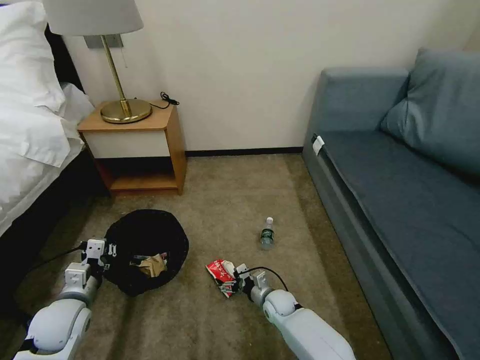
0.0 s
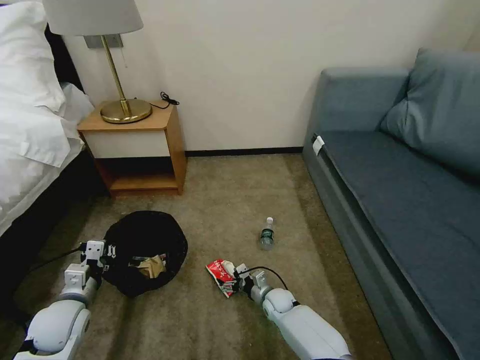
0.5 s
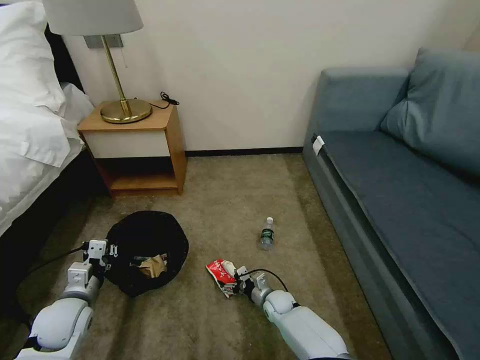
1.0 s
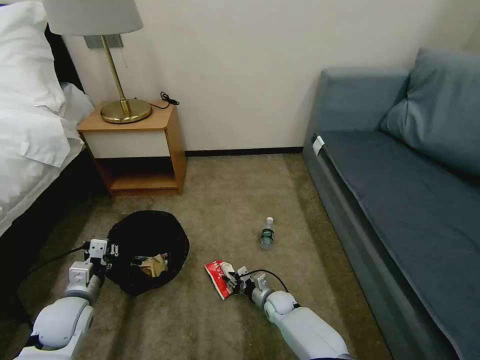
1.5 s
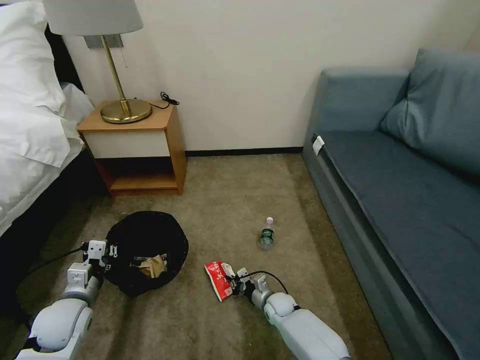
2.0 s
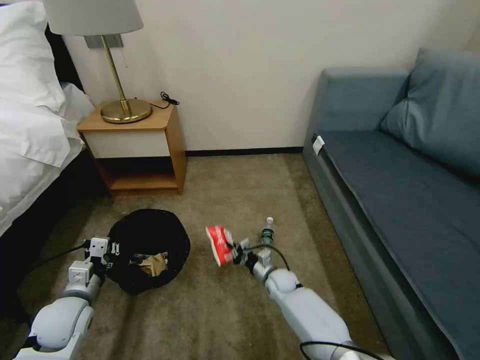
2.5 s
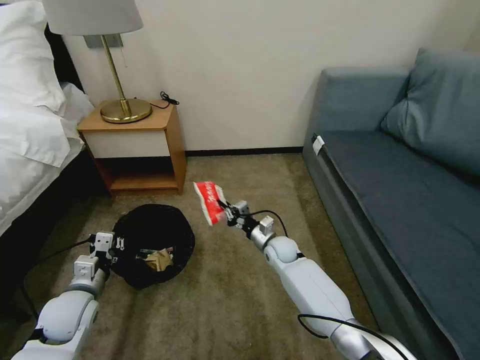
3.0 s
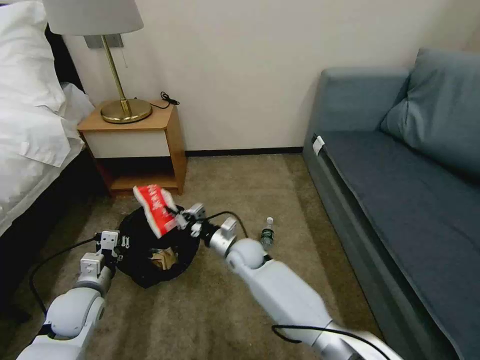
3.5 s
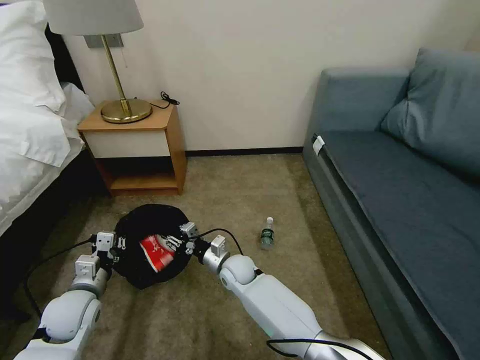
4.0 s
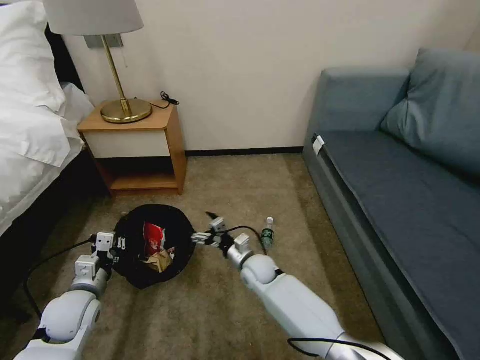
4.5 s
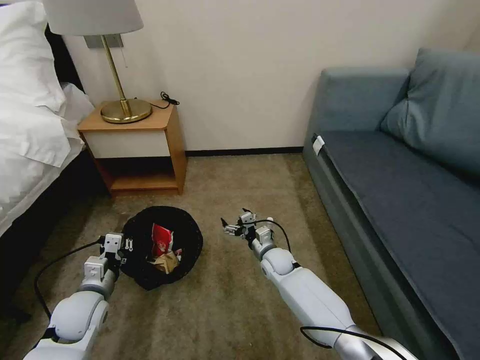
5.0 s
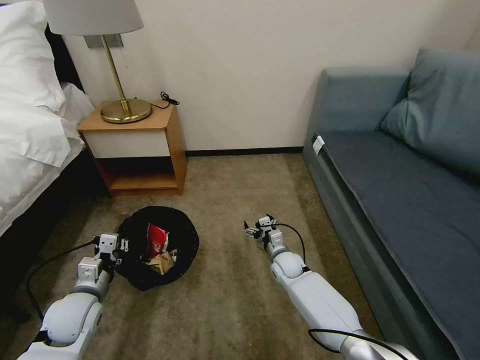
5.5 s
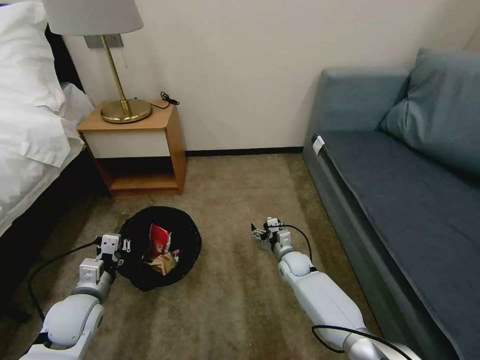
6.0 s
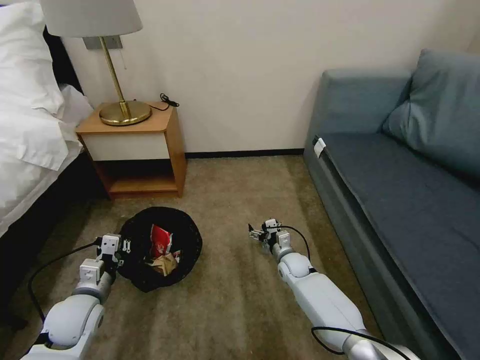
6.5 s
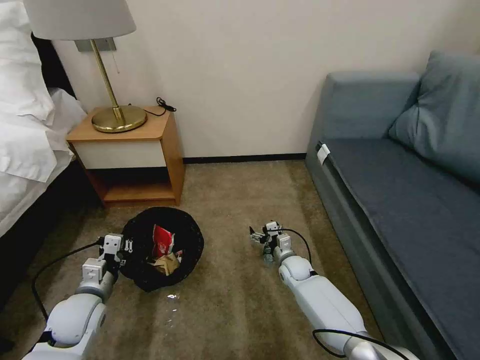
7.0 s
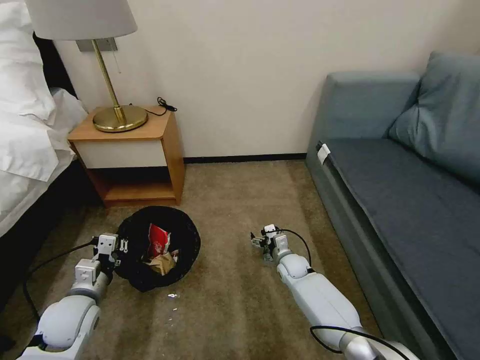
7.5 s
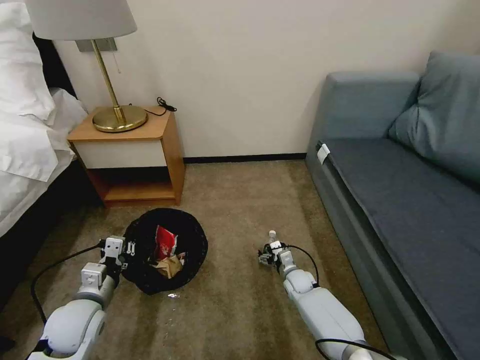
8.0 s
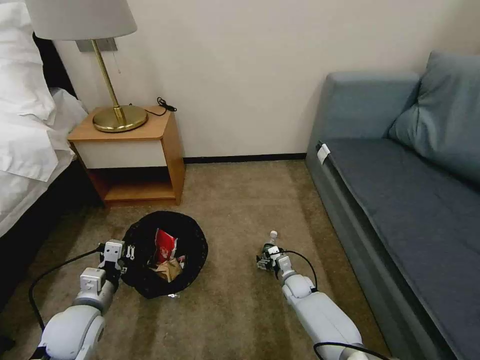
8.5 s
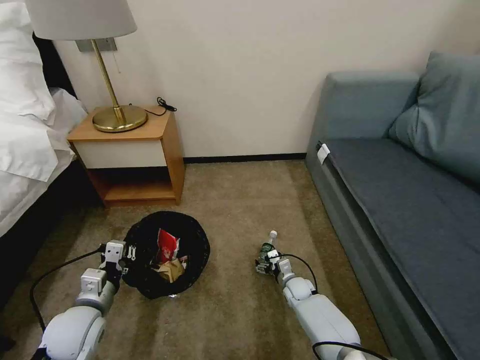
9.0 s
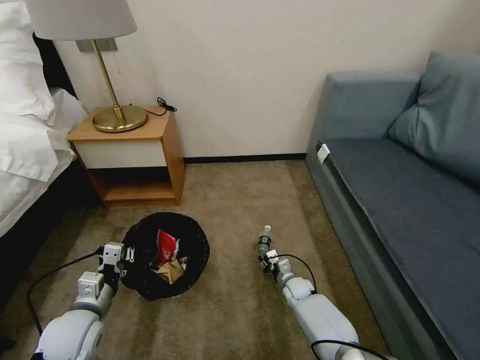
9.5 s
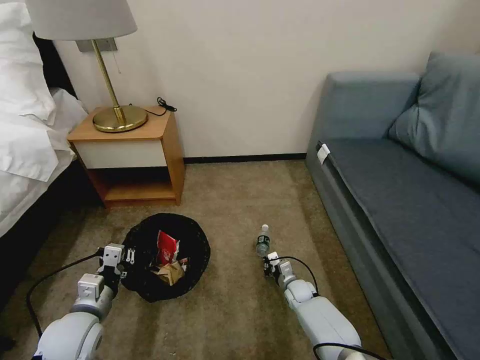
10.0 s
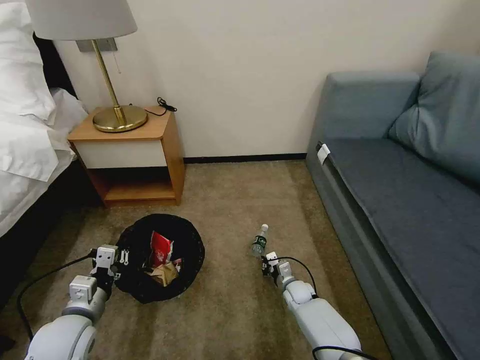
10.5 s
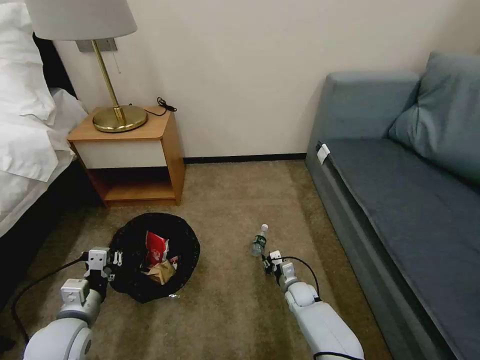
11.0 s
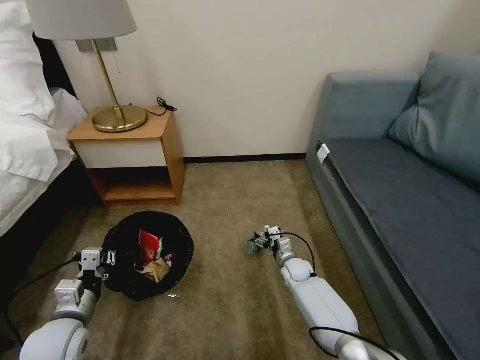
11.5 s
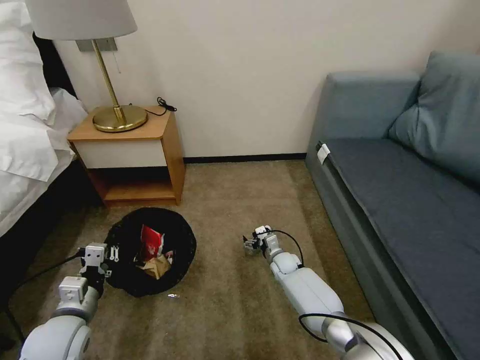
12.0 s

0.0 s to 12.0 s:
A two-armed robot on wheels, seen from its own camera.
Task of the whole recording: Pick up the trash bin, then pick up the garbage on the floor and place it into the trash bin.
0.0 to 2.0 s: The right gripper closes up.
2.0 to 4.0 s: The right gripper moves upward and to the left, roughly 20 cm, and opens its fingers.
4.0 to 6.0 s: The right gripper shifts some 20 cm to the right, and opens its fingers.
6.0 to 8.0 s: The right gripper travels downward by some 5 cm.
8.0 to 10.0 s: The right gripper closes up.
10.0 to 12.0 s: The right gripper heads forward and upward, covering about 10 cm, and opens its fingers.

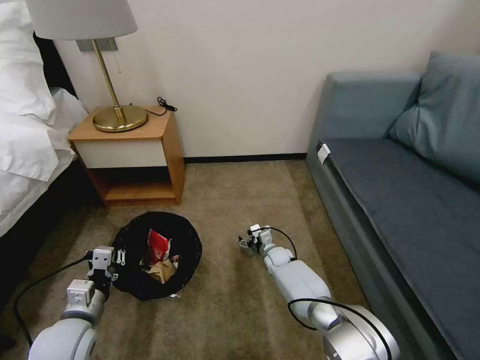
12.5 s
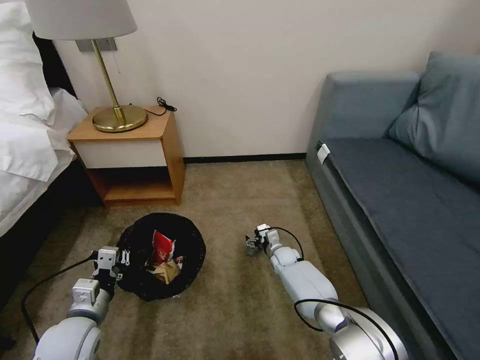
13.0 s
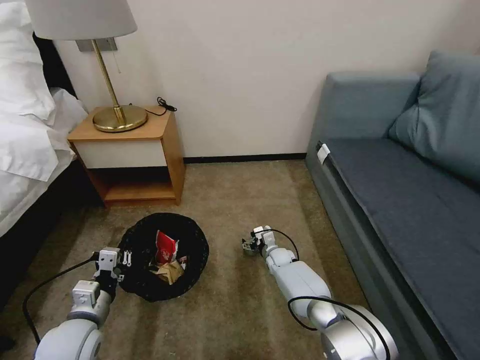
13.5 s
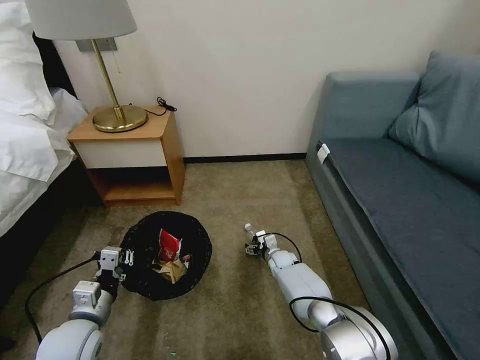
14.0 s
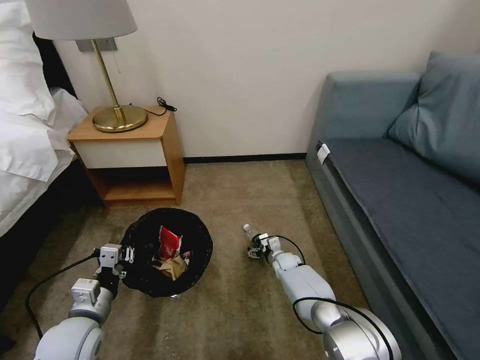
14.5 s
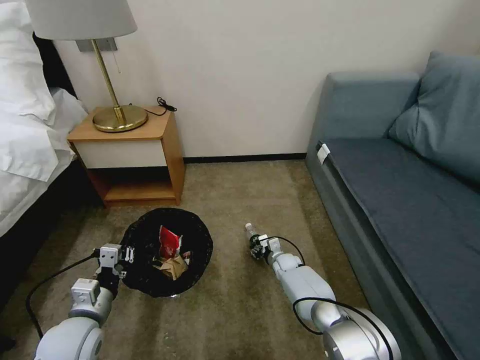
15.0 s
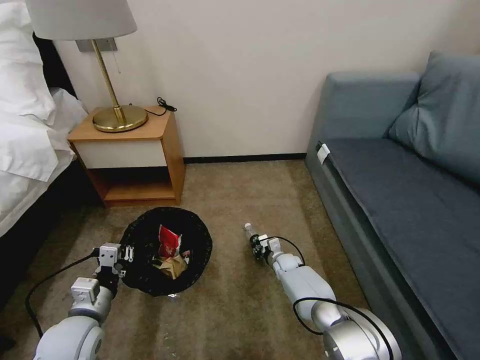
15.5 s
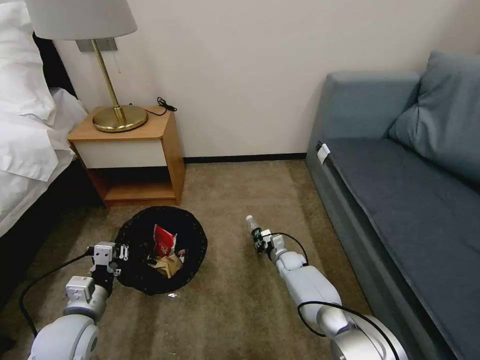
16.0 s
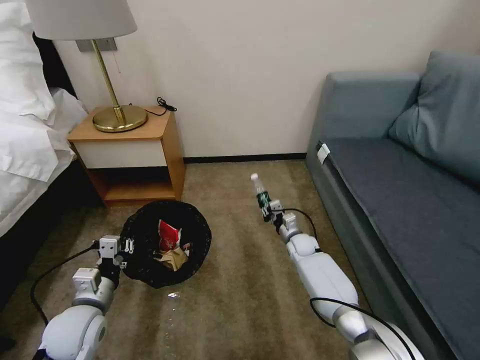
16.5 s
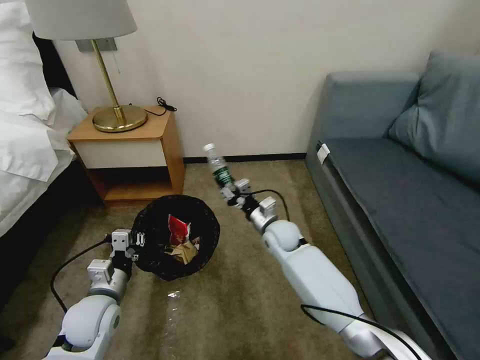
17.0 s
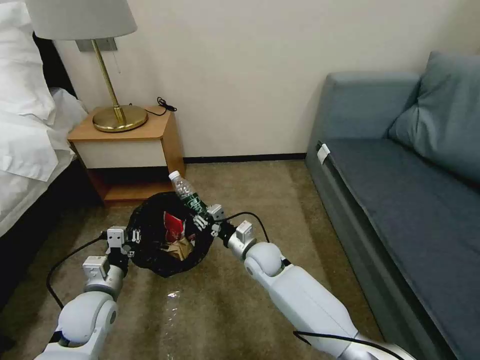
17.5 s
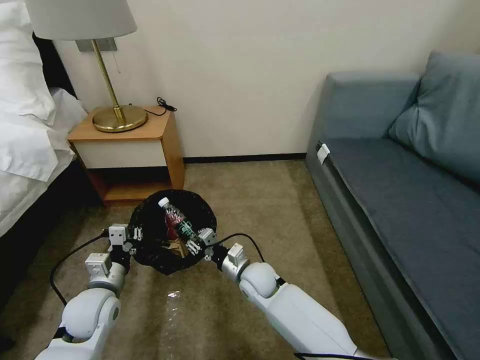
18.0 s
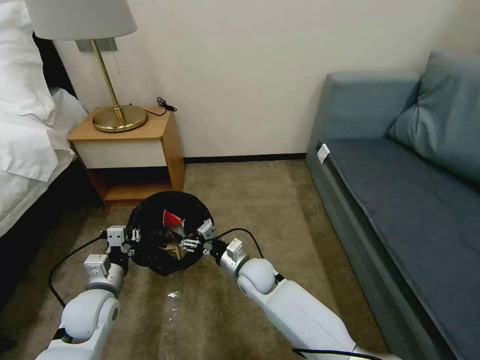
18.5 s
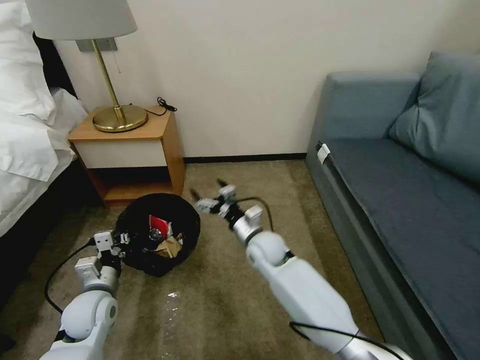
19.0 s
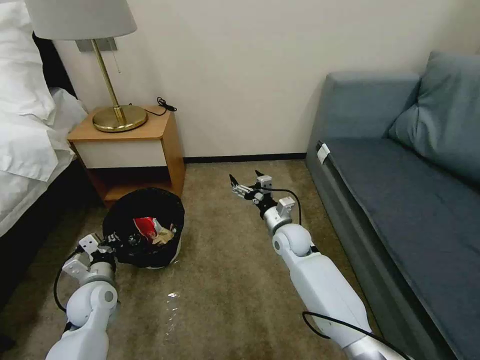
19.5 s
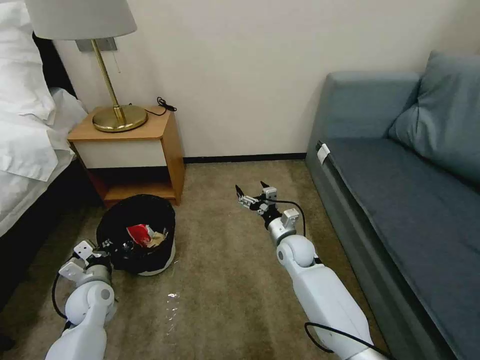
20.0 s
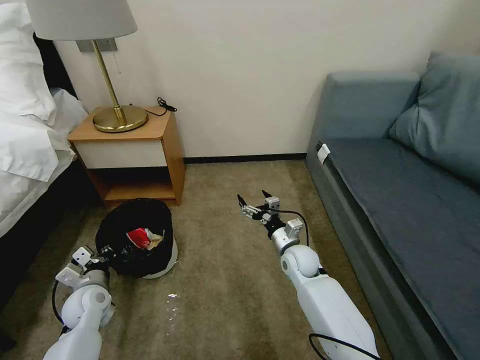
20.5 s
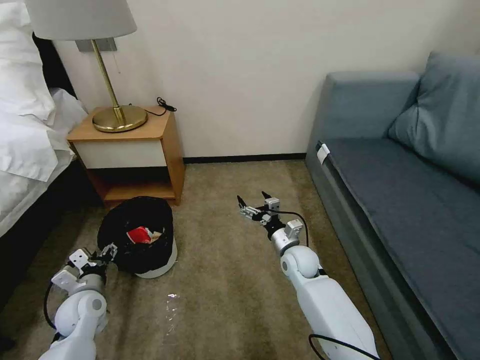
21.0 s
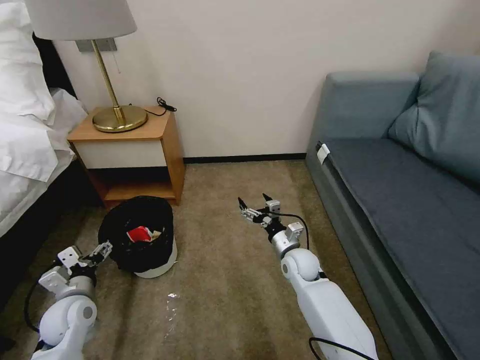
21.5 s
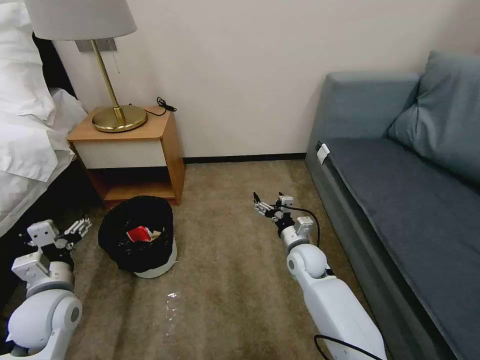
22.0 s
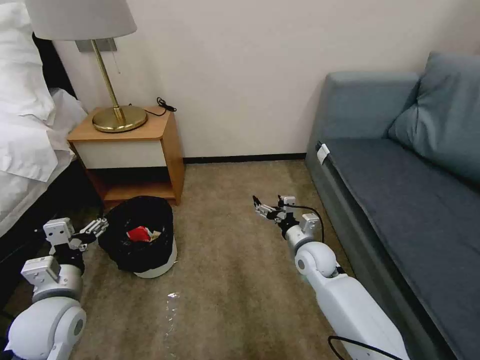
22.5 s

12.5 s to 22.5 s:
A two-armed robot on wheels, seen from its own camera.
Task of the whole recording: Pick up the trash bin, then pick up the garbage on the floor and place it into the trash bin.
12.5 to 14.5 s: The grippers make only small movements.
14.5 to 16.5 s: The right gripper is displaced upward by approximately 10 cm, and closes its fingers.
16.5 to 18.5 s: The right gripper shifts roughly 25 cm to the left, backward and upward, and opens up.
18.5 to 20.5 s: The left gripper is displaced downward and to the left by some 10 cm. Meanwhile the right gripper shifts some 10 cm to the right.
20.5 to 22.5 s: The right gripper ends up approximately 5 cm from where it was. Meanwhile the left gripper is displaced upward and backward by approximately 15 cm, and opens up.

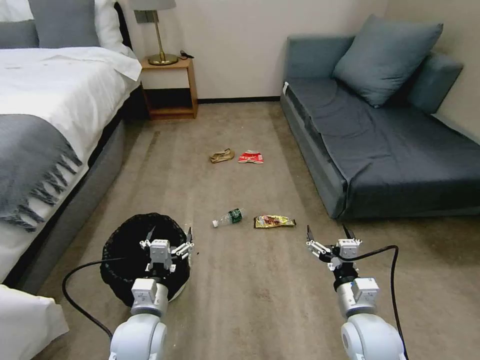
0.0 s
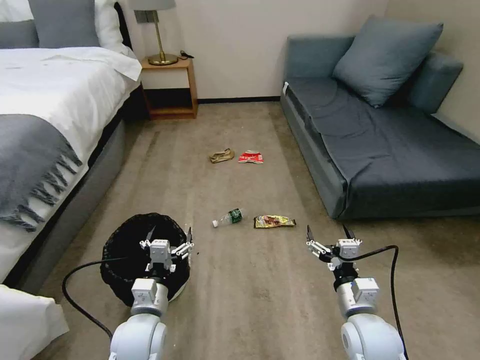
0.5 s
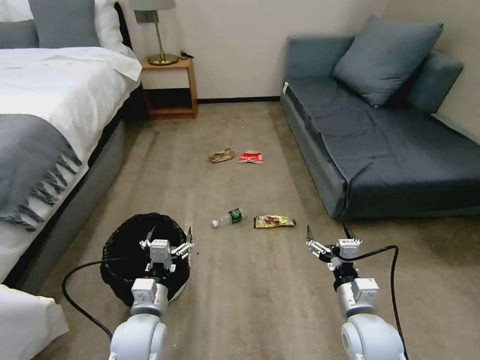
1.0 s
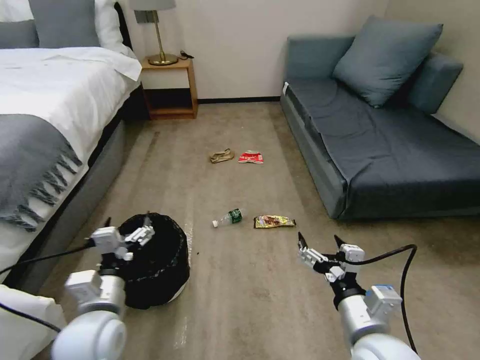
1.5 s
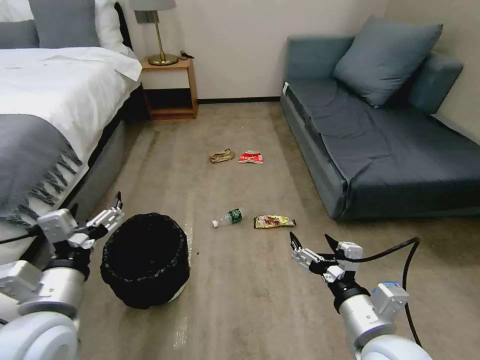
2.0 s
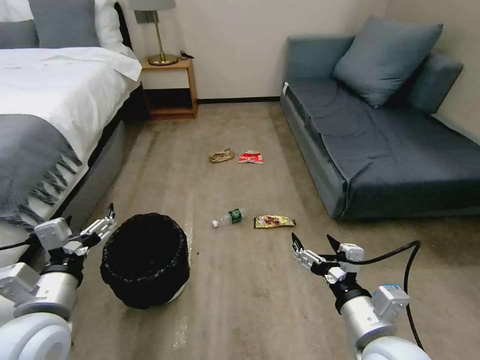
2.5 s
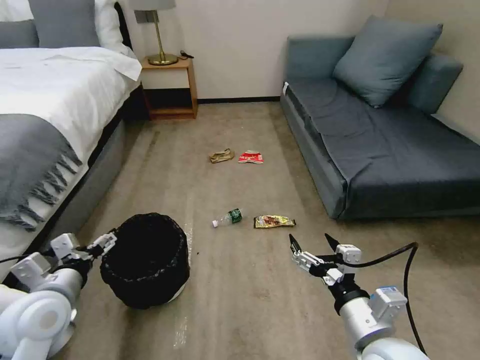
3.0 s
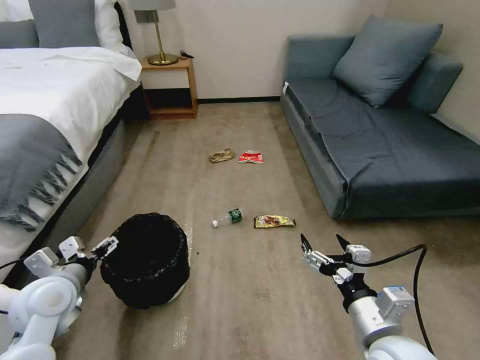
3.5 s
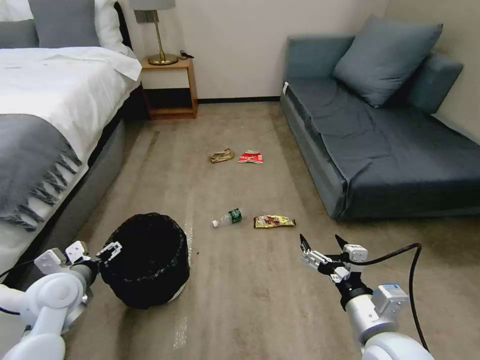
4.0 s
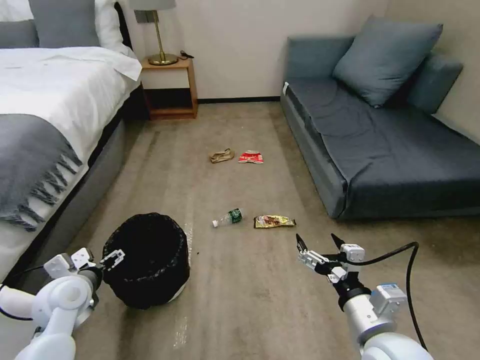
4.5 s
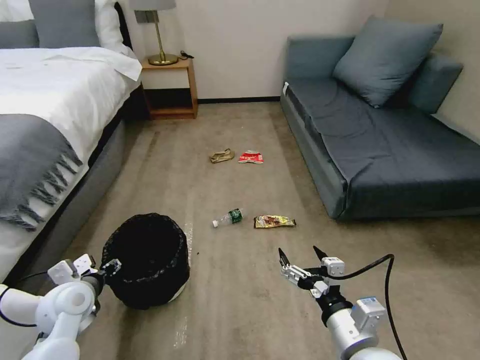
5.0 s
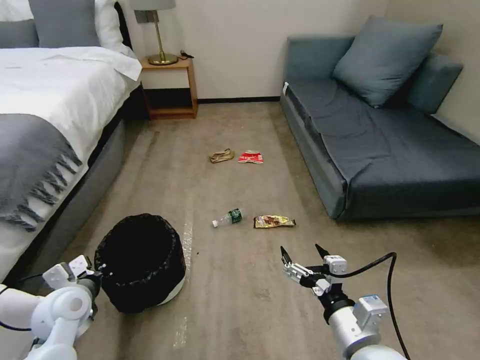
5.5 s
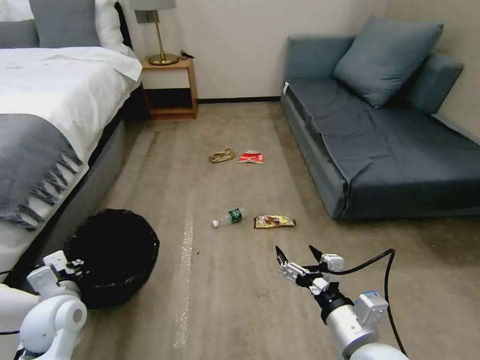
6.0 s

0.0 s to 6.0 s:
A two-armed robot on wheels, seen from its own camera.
Task of the whole recording: Pick up the trash bin, then pick up the garbage on the floor and place it into the trash bin.
2.0 to 4.0 s: The left gripper heads downward, forward and to the left, covering approximately 15 cm.
4.0 to 6.0 s: The left gripper closes.
